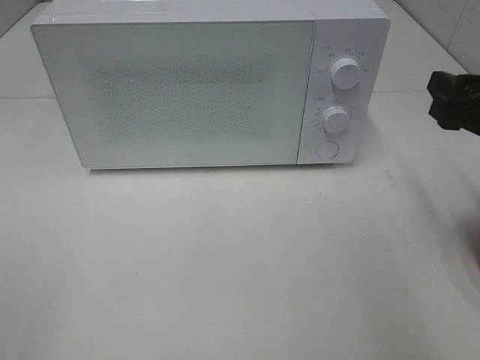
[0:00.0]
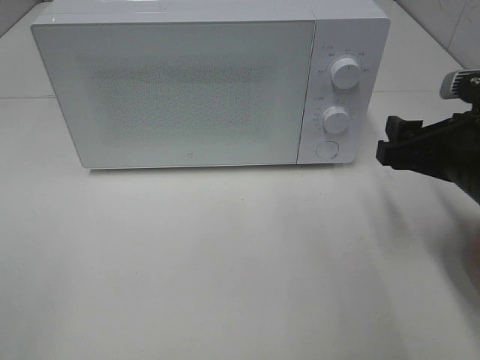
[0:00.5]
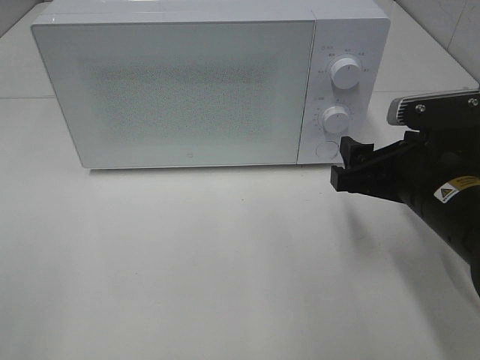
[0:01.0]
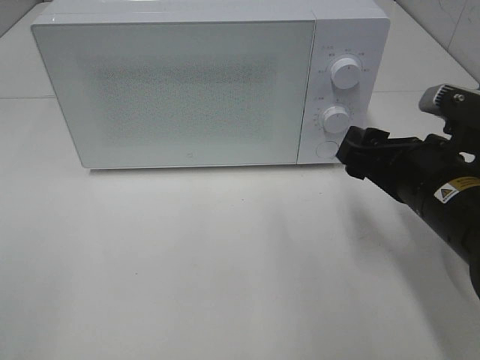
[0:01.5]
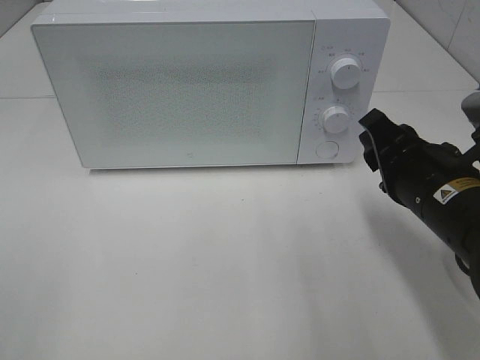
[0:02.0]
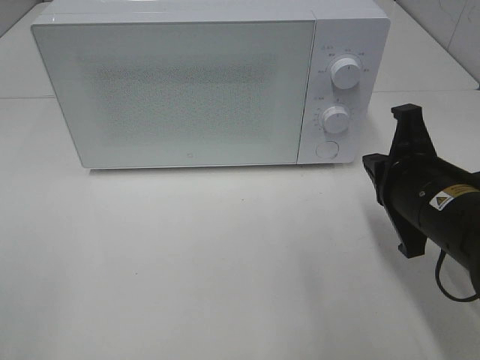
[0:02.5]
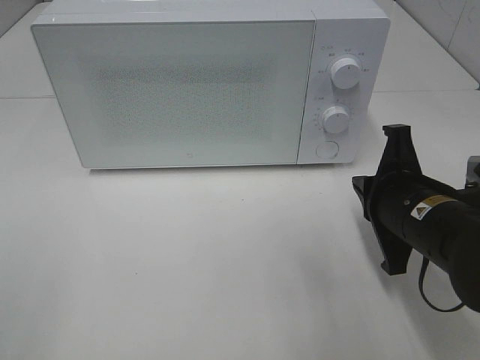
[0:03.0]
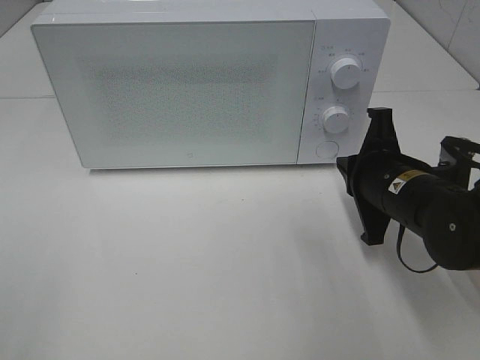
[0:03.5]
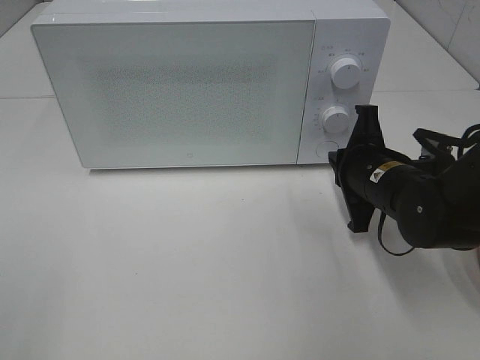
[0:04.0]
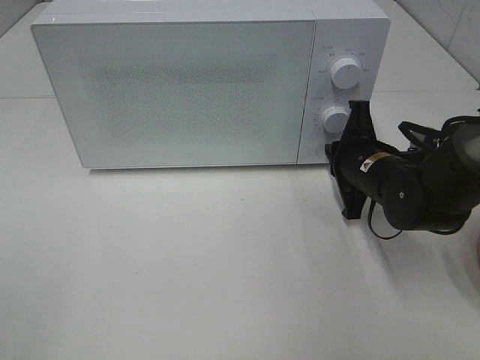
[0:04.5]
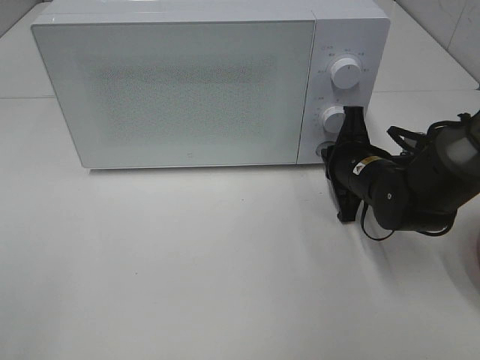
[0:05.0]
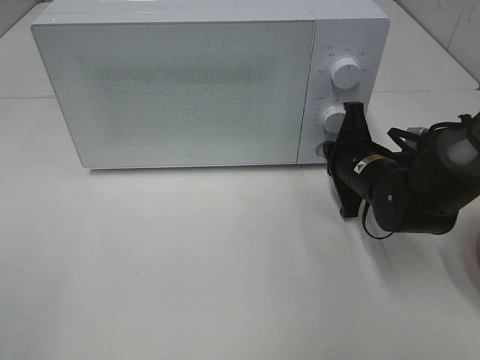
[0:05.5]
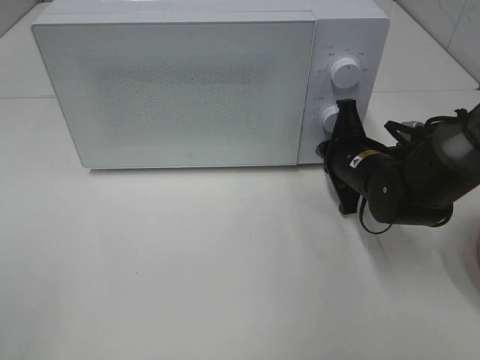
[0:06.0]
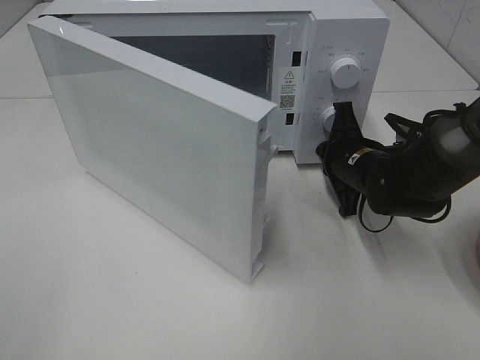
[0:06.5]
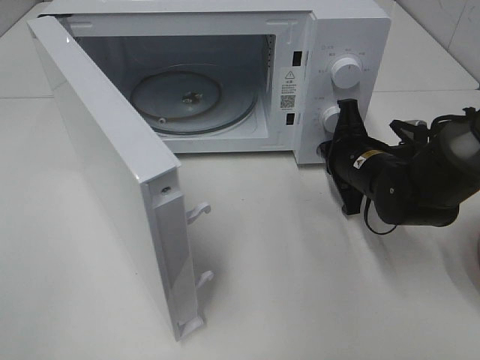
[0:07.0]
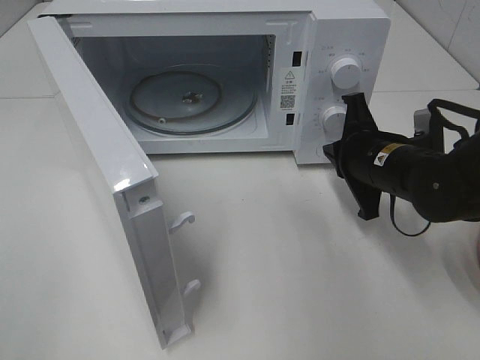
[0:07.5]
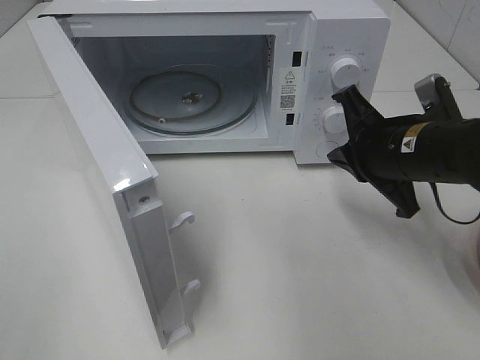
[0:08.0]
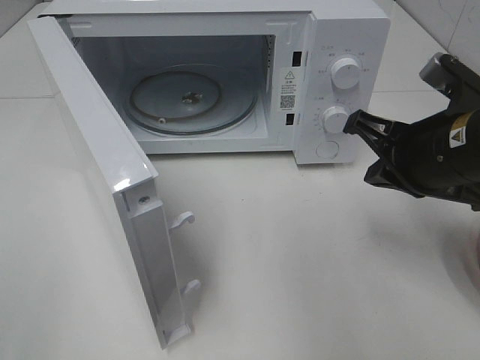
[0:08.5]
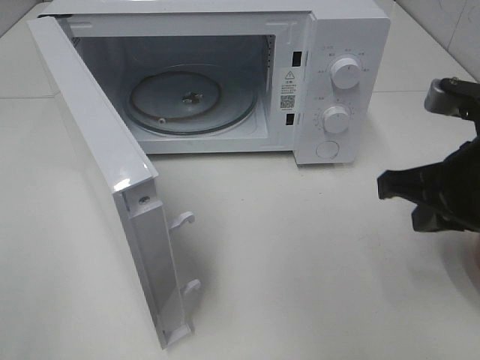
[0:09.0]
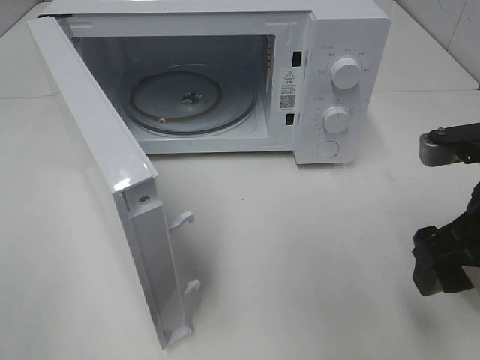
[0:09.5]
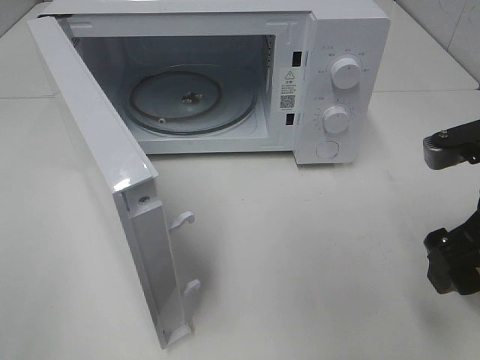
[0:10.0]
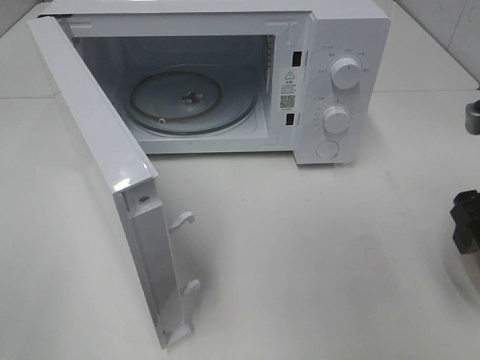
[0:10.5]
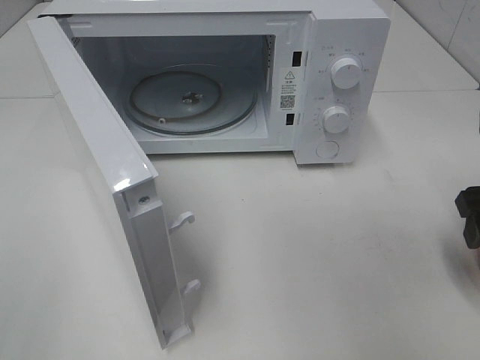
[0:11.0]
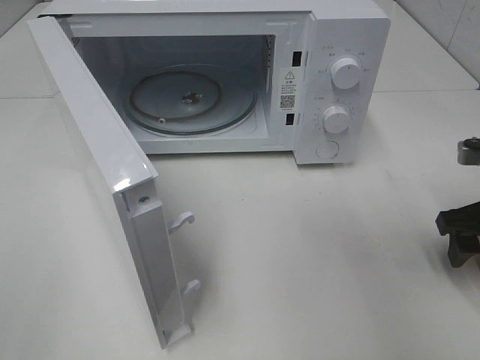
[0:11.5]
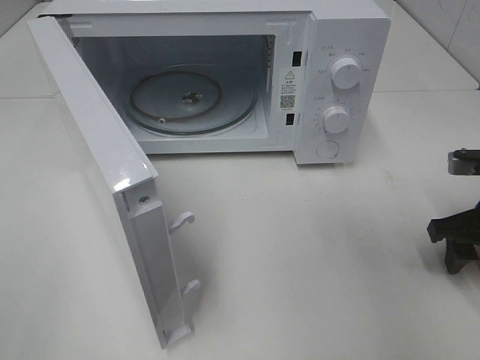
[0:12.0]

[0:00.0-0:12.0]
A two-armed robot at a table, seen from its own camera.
Task of the whole recording: Heat the burger.
Step, 0:00.0 to 0:07.0: Right hand: press the switch.
0:00.0 to 0:02.0: The right gripper moves to the left and downward, roughly 10 cm, and closes up.
0:02.0 to 0:04.0: The right gripper moves forward and downward, roughly 10 cm, and closes its fingers.
0:04.0 to 0:06.0: The right gripper is displaced forward by some 5 cm.
0:06.0 to 0:08.0: The right gripper is displaced upward and backward by some 10 cm.
0:08.0 to 0:10.0: The right gripper travels backward and to the right by about 10 cm, and opens its fingers.
0:10.0 to 0:12.0: The right gripper heads downward, forward and to the right, covering roughly 15 cm.

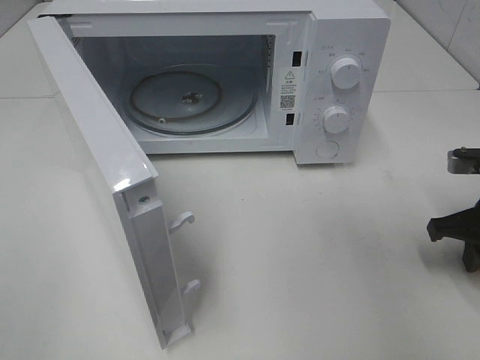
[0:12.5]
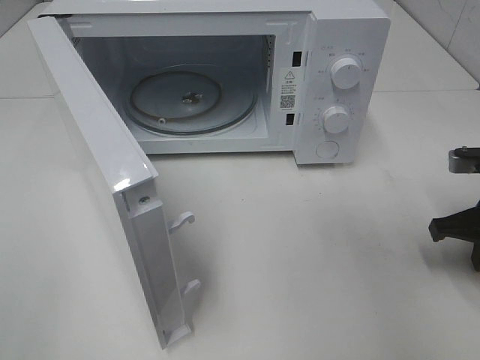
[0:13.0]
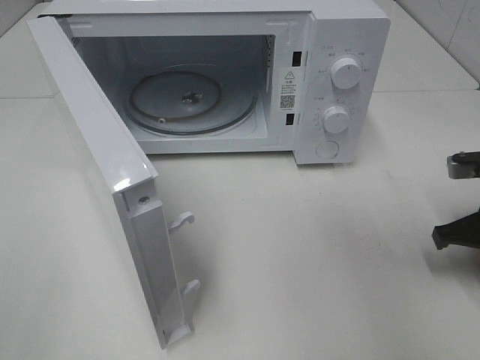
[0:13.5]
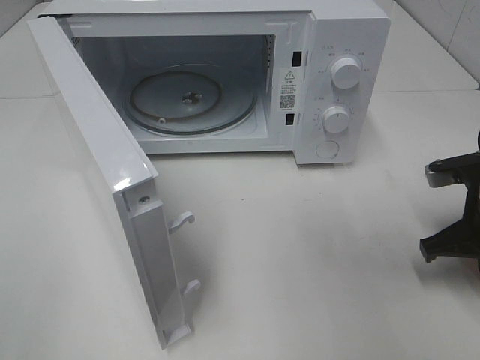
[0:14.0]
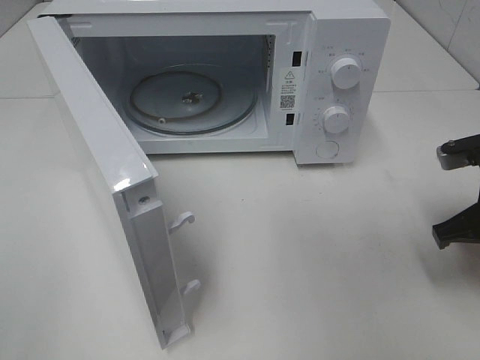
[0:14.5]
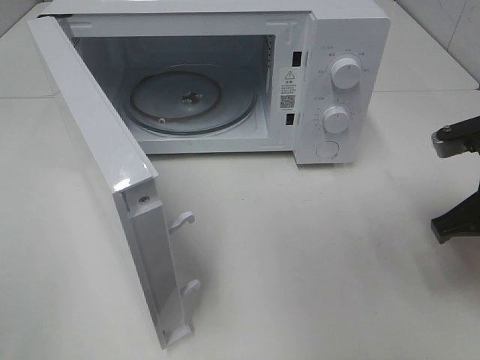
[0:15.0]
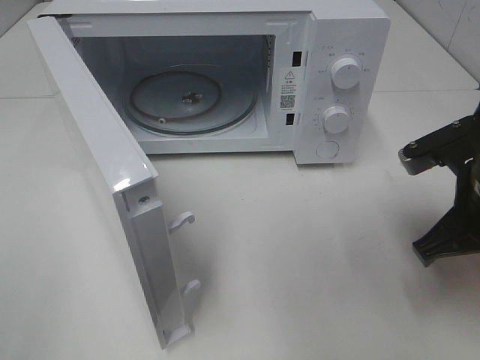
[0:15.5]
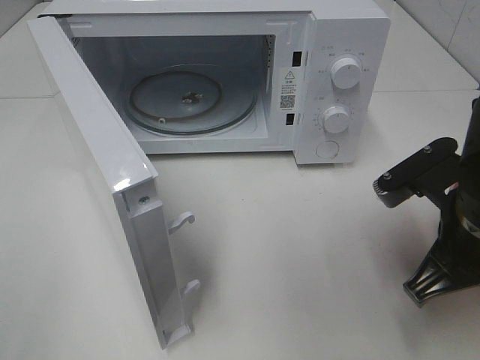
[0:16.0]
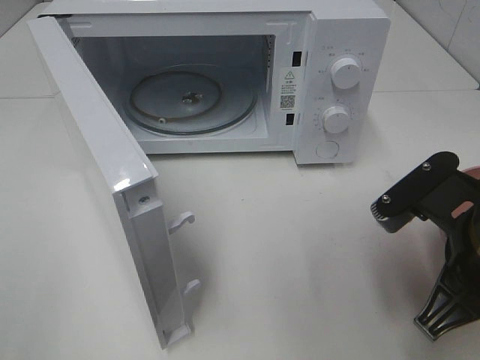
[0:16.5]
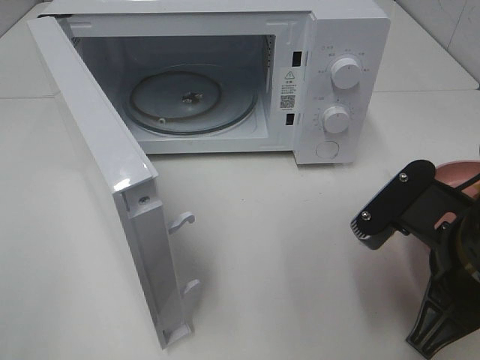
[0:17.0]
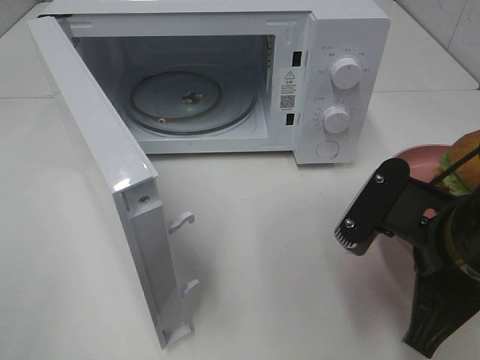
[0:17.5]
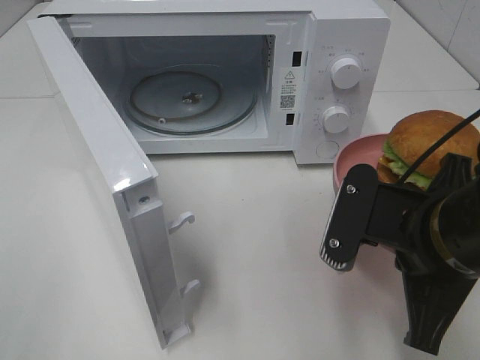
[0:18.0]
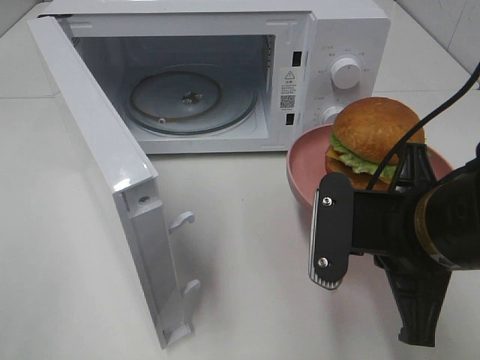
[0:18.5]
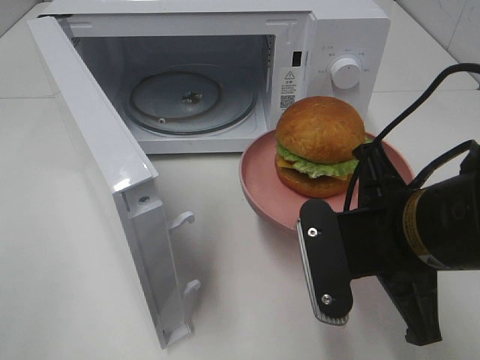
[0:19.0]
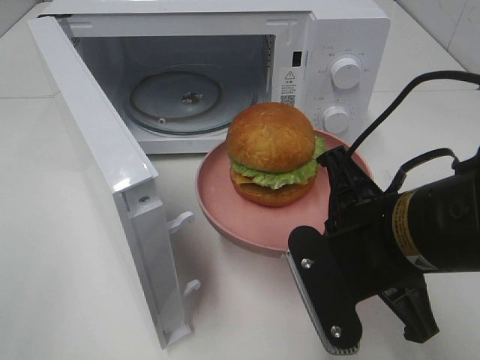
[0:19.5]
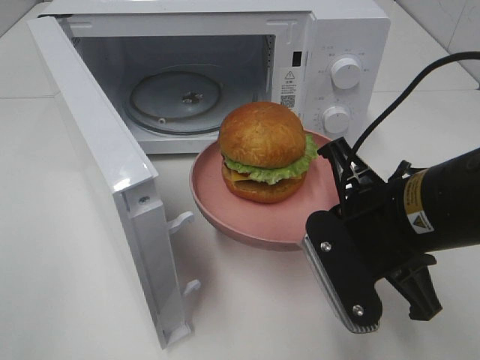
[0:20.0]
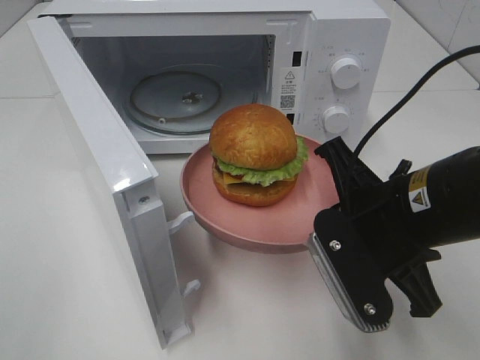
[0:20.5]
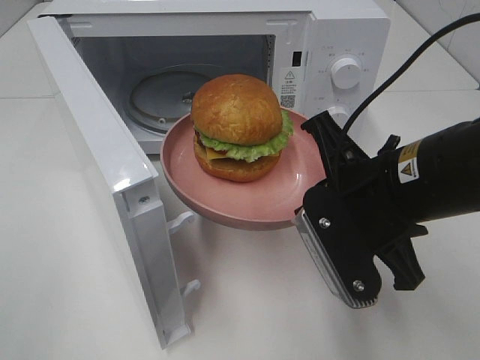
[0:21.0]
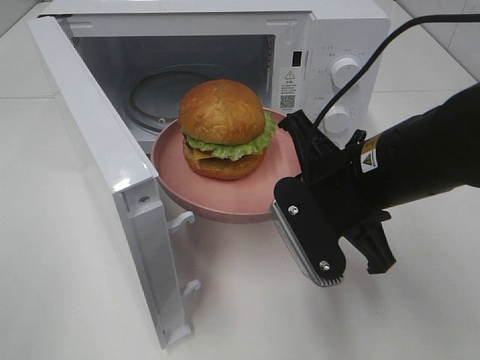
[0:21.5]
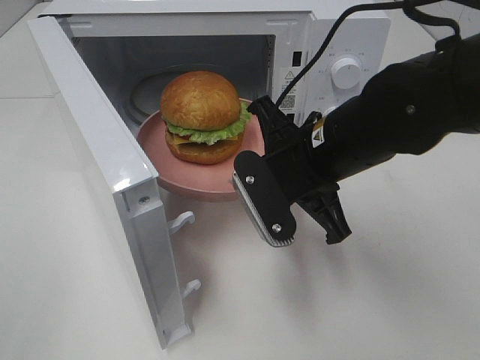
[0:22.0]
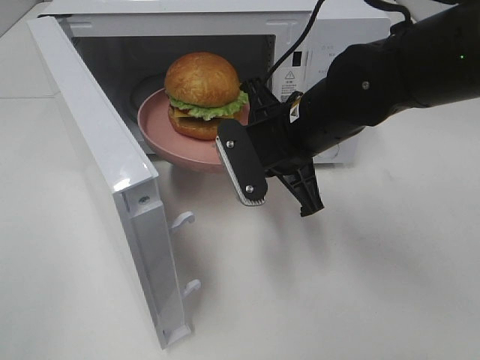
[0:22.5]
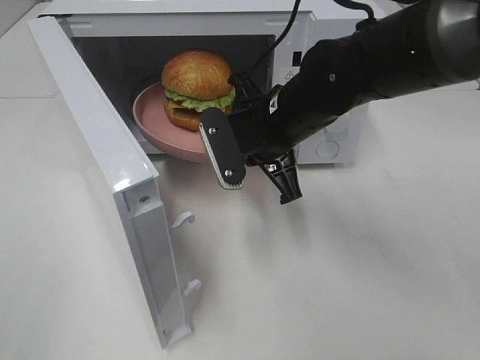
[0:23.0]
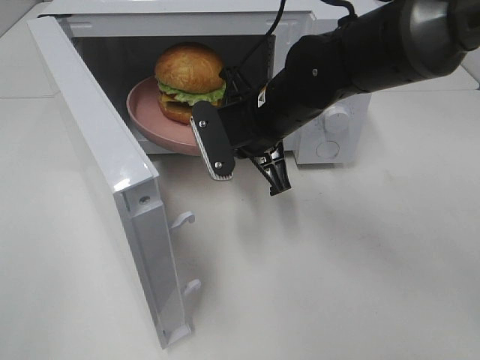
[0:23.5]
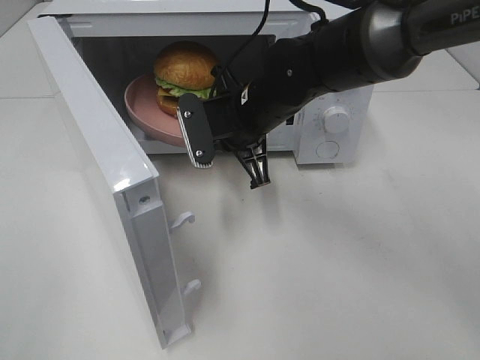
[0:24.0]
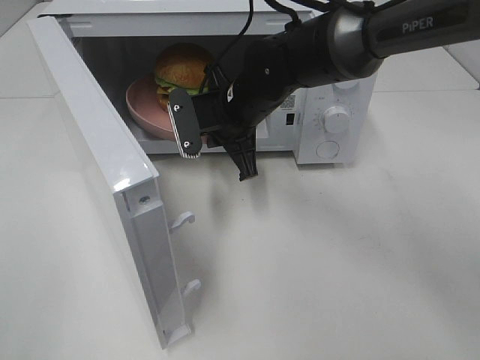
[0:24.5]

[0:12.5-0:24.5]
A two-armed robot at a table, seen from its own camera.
Task of the whole recording: Heat the burger.
0:12.5 to 0:14.5: The grippers stay close to where they were, moving slightly.
0:14.5 to 0:16.5: The right gripper moves backward and to the left, some 10 cm.
0:20.5 to 0:22.5: The right gripper goes about 15 cm forward and to the left.
0:22.5 to 0:24.5: The right gripper travels forward and to the left by some 10 cm.

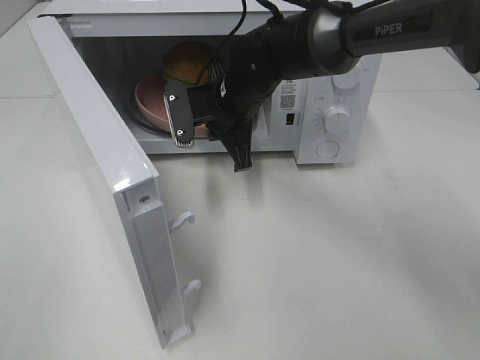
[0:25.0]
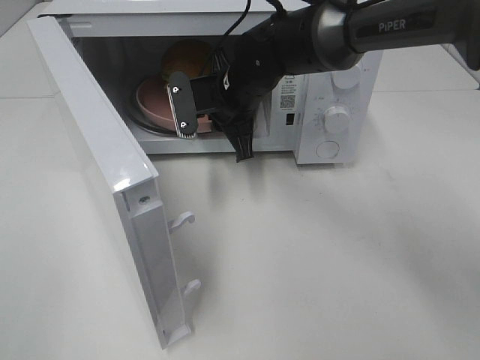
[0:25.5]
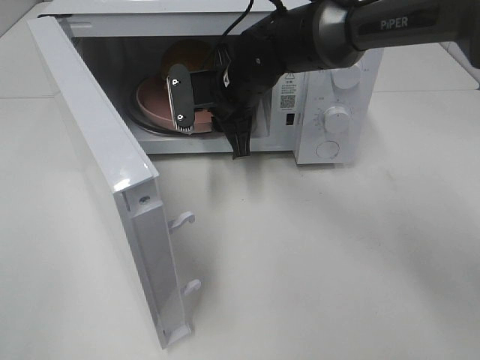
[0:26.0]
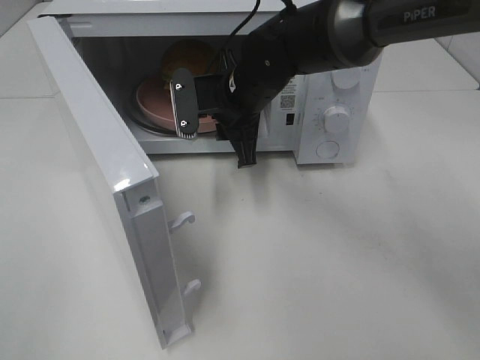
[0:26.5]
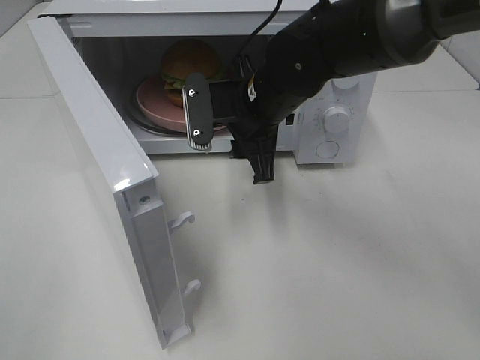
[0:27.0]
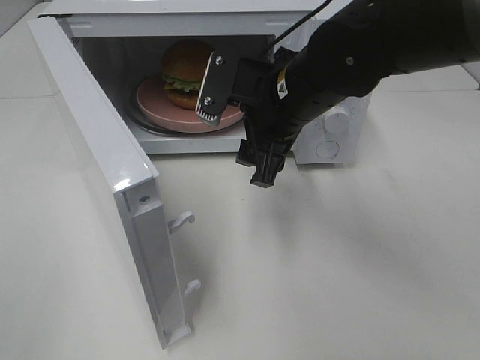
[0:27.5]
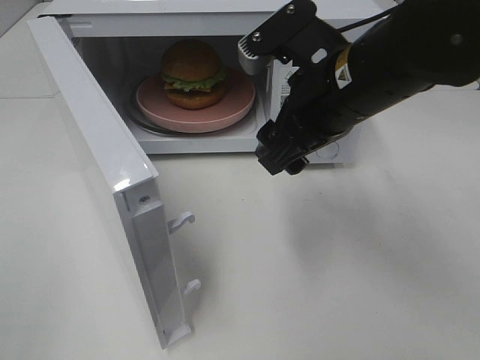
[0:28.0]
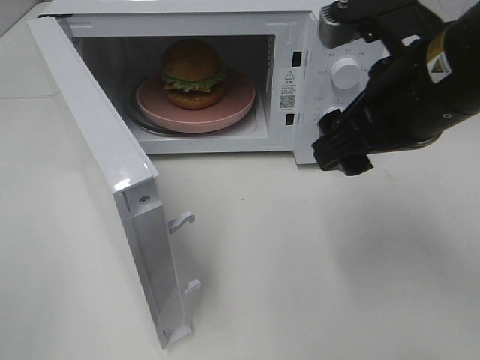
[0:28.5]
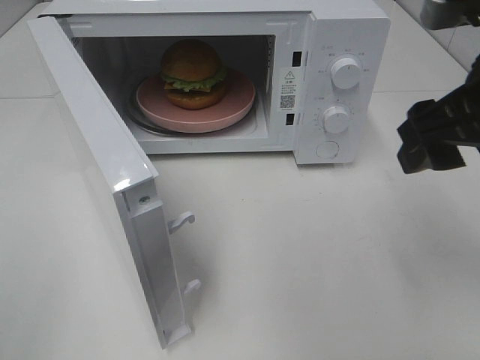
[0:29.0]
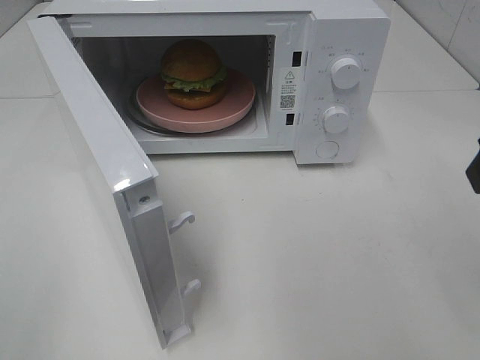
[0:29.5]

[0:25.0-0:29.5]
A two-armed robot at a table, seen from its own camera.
Task of the whole recording: Heat the burger.
0:25.0 to 0:27.0: The right gripper travels backward by approximately 5 cm, and opens.
0:27.0 to 0:29.5: The right gripper is displaced to the right, backward and upward by roughly 30 cm.
